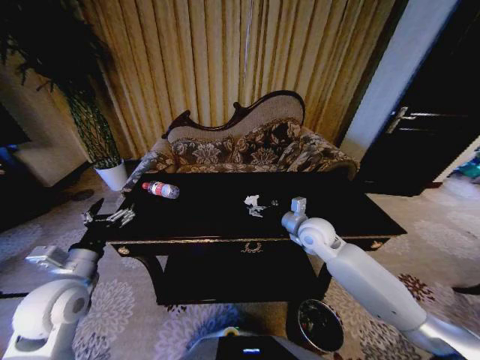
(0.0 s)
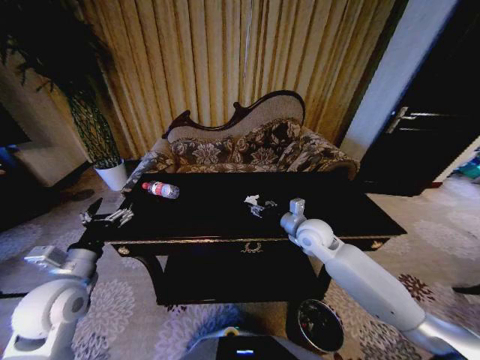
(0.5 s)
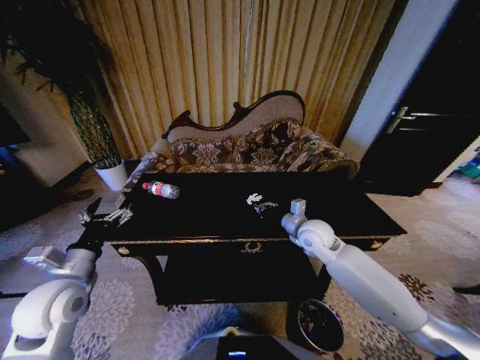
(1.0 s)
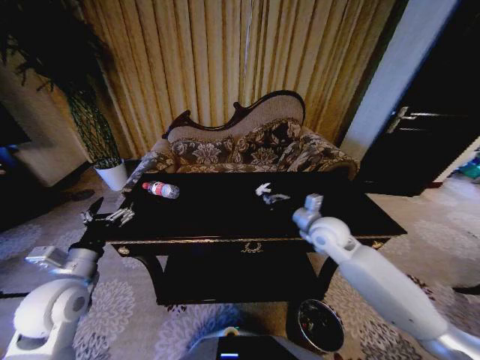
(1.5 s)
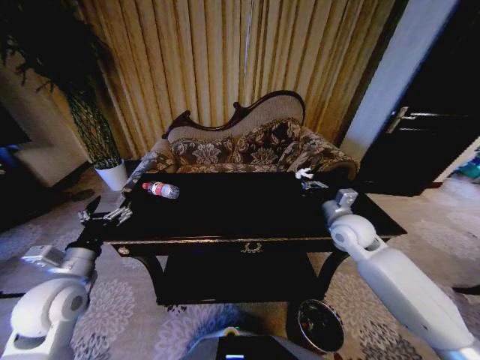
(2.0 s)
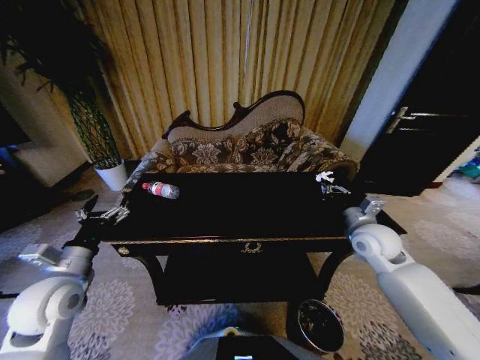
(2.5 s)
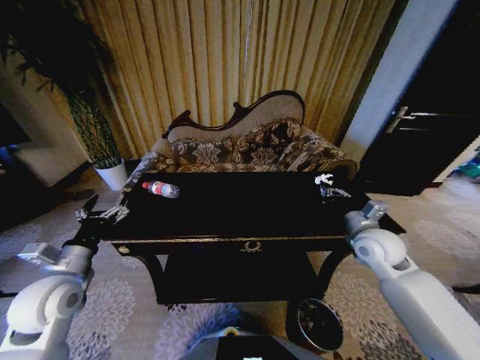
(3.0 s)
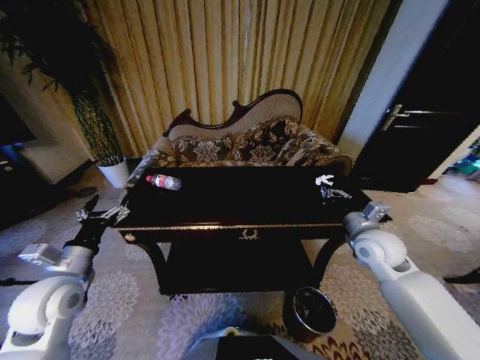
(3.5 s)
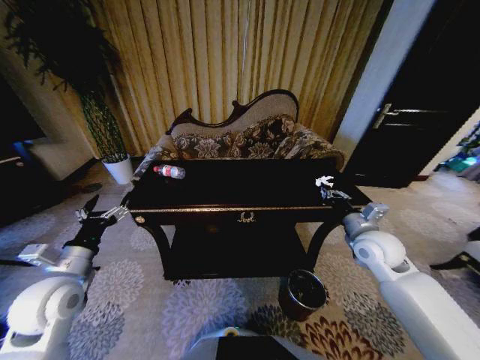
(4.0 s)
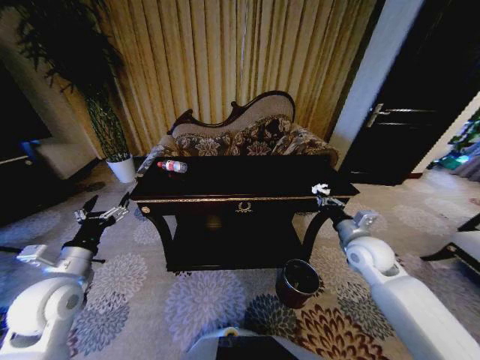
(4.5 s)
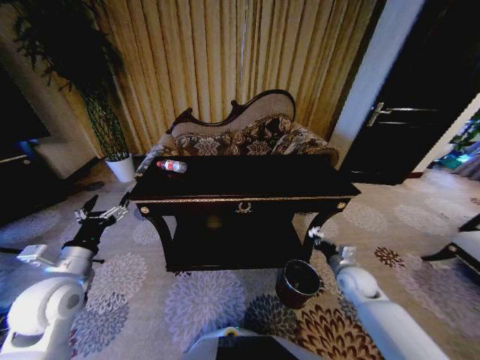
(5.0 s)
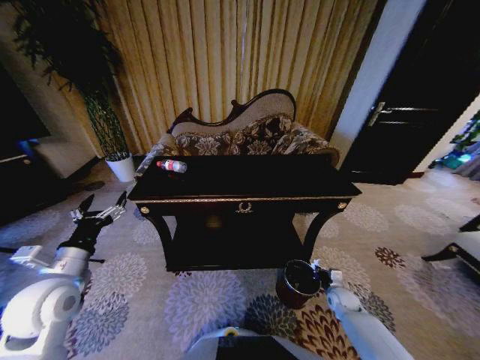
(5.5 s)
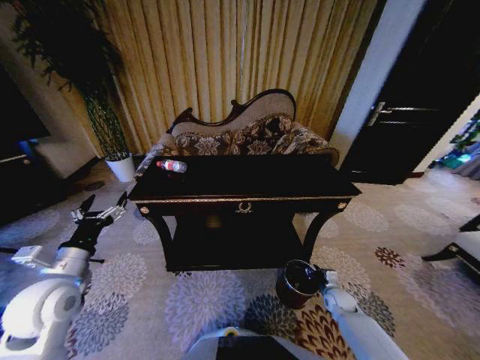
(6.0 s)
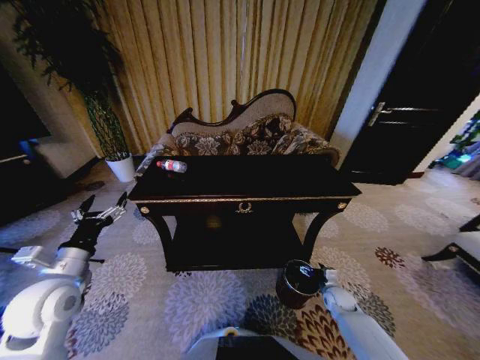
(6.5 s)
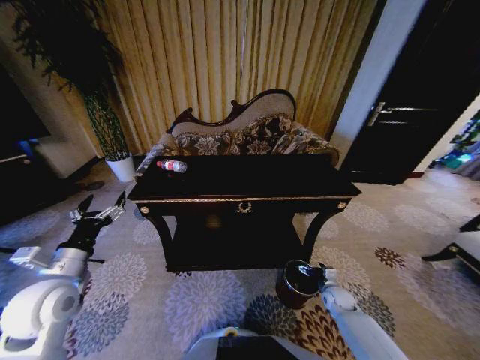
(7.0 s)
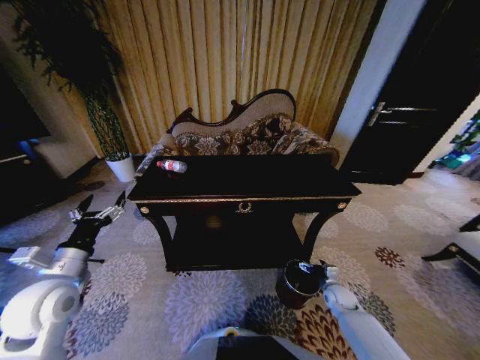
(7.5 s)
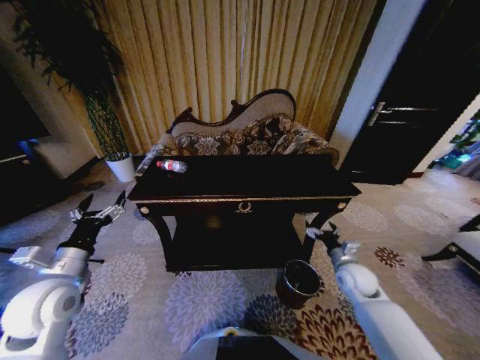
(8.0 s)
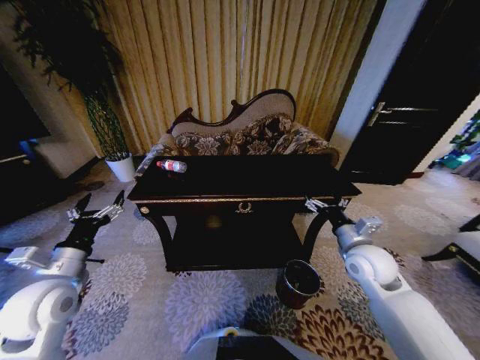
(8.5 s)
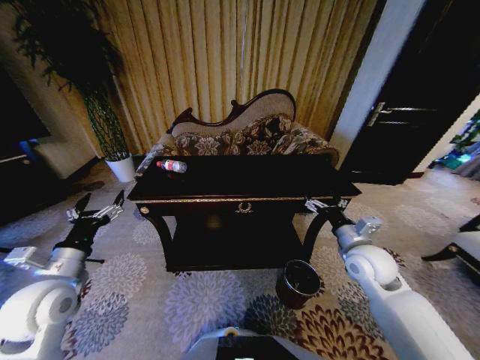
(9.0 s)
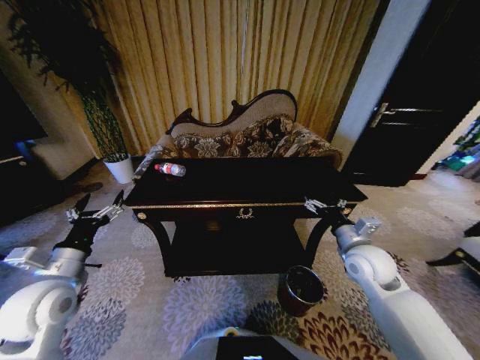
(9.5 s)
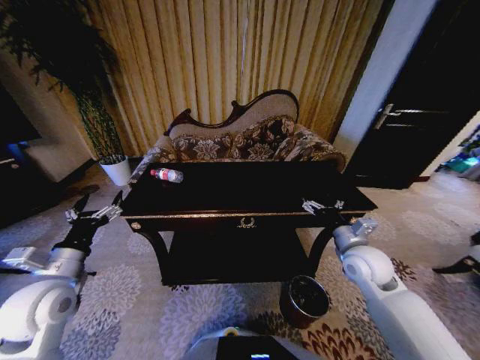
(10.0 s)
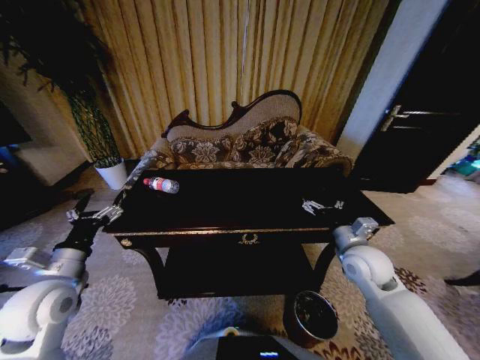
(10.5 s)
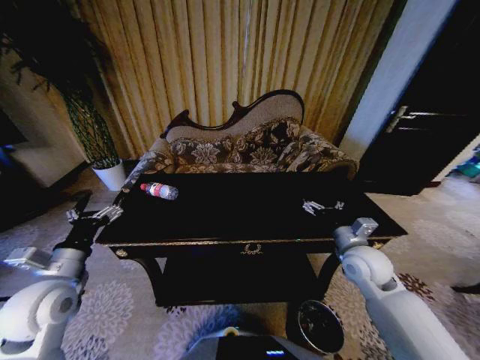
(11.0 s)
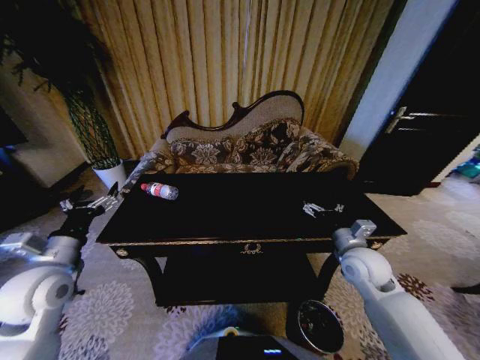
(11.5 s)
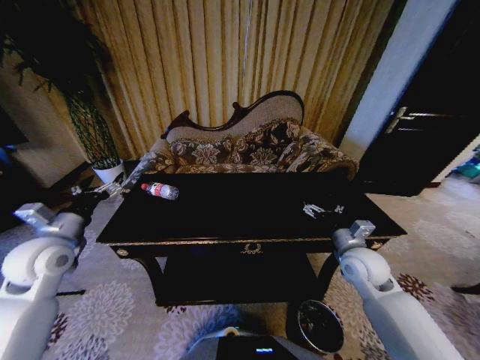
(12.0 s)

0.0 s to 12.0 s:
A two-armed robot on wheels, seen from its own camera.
Task of the whole recording: Move to the front of the table and place the trash on the table into the trash bin.
0.0 to 2.0 s: The right gripper is displaced to the right by approximately 10 cm, and closes its fingers.
2.0 to 4.0 s: The right gripper shifts by about 5 cm.
4.0 to 6.0 s: The right gripper travels downward by roughly 30 cm.
6.0 to 8.0 s: The right gripper heads upward, covering roughly 20 cm, and opens its fingers.
8.0 to 10.0 s: The right gripper heads upward, covering some 10 cm.
10.0 to 12.0 s: The left gripper shifts roughly 10 cm forward.

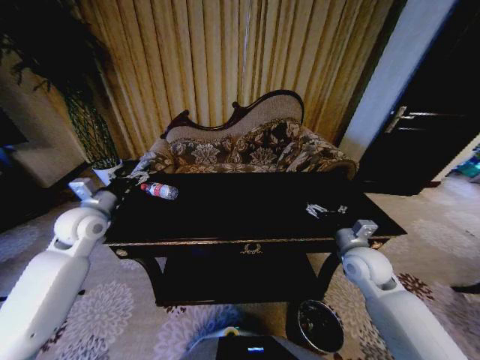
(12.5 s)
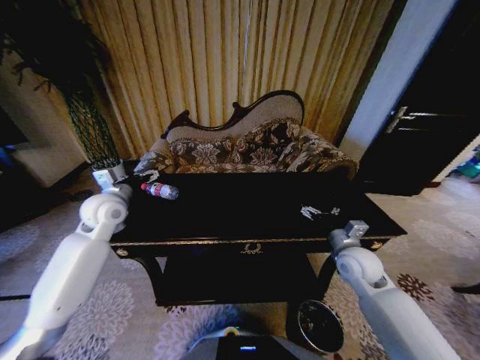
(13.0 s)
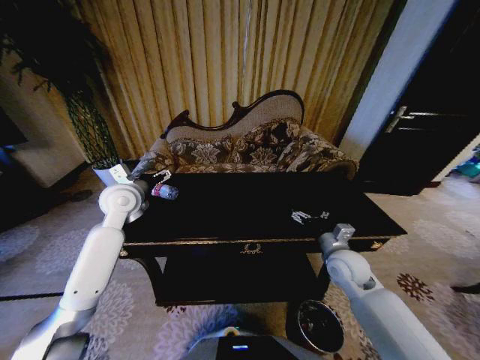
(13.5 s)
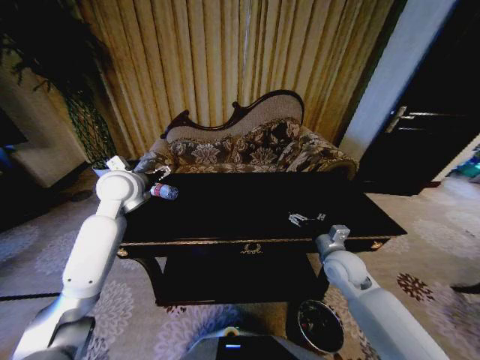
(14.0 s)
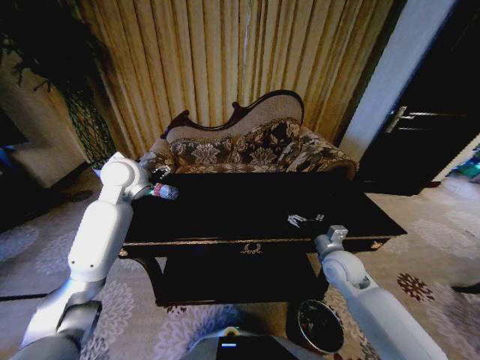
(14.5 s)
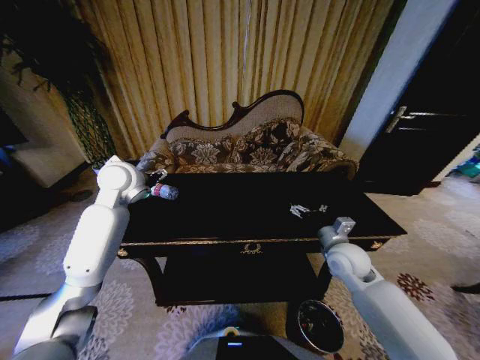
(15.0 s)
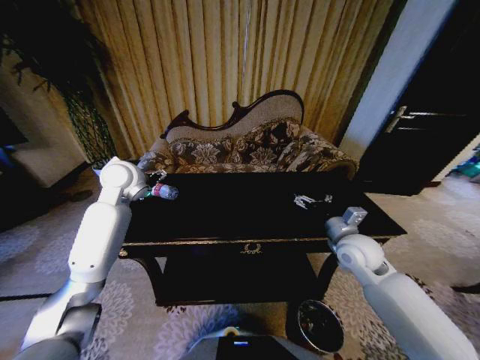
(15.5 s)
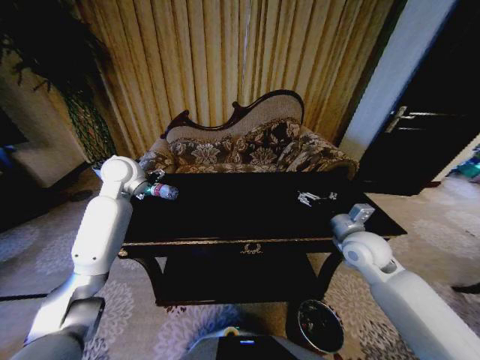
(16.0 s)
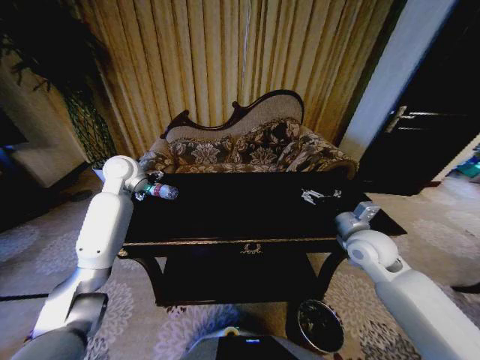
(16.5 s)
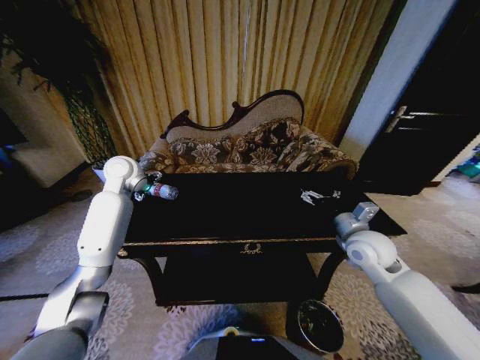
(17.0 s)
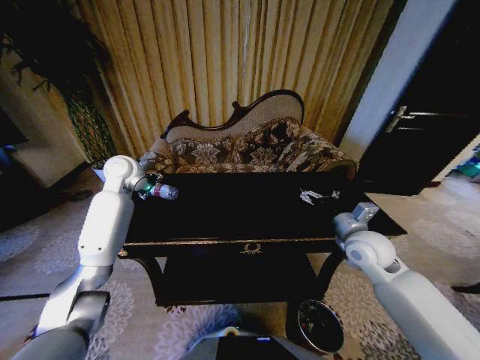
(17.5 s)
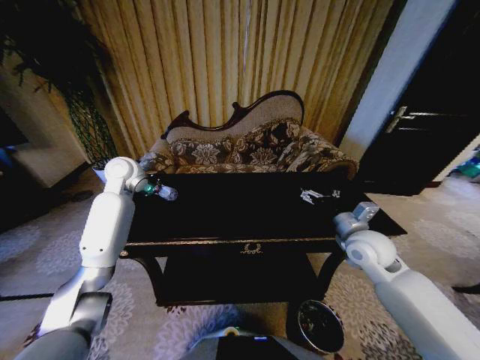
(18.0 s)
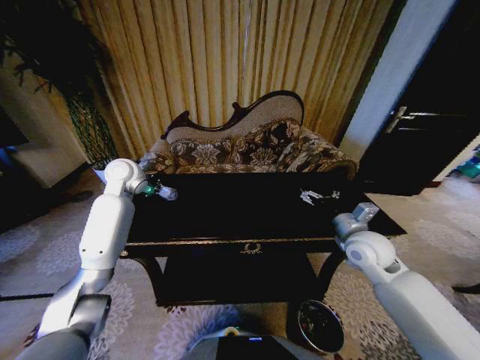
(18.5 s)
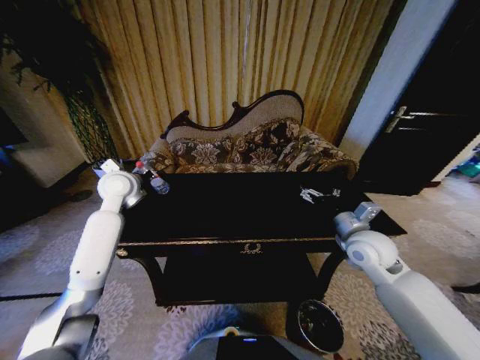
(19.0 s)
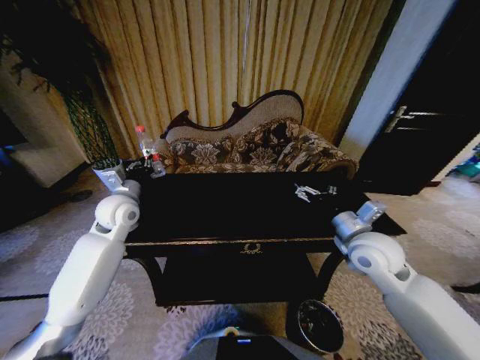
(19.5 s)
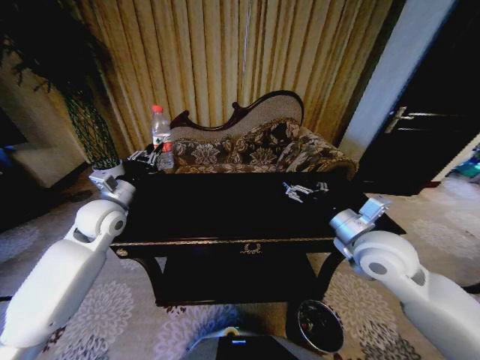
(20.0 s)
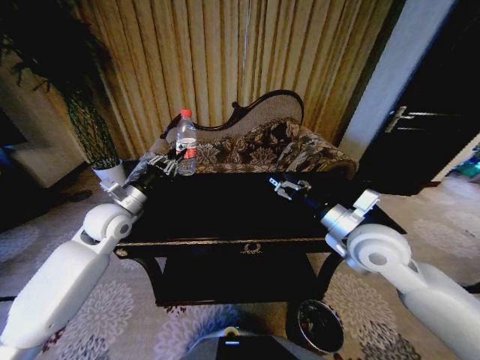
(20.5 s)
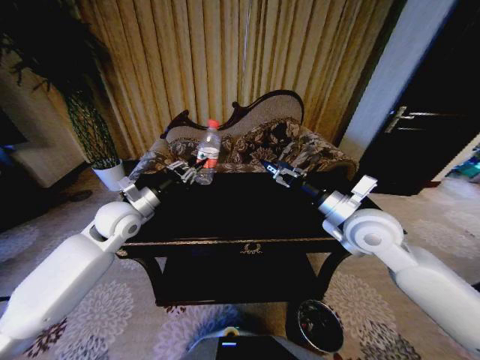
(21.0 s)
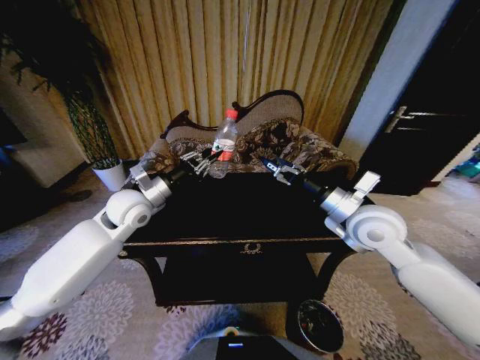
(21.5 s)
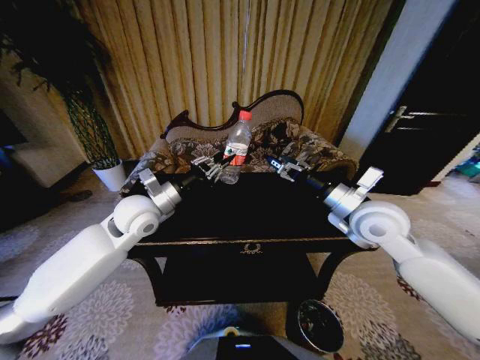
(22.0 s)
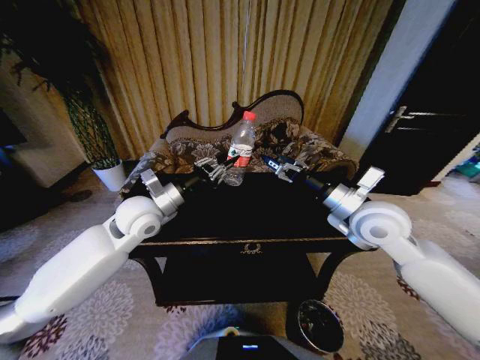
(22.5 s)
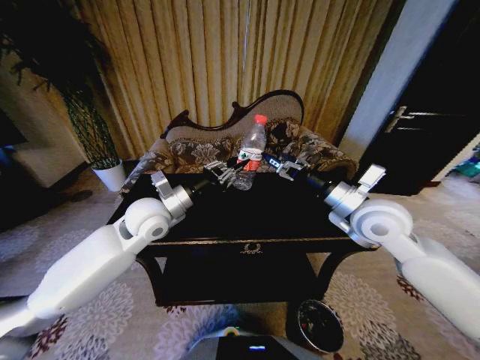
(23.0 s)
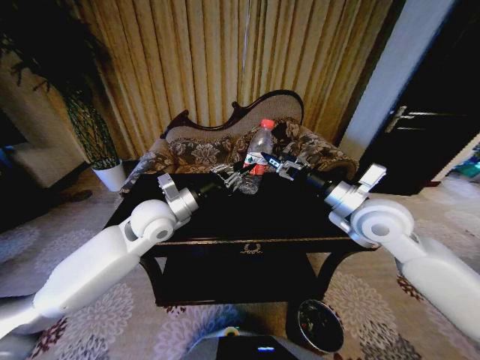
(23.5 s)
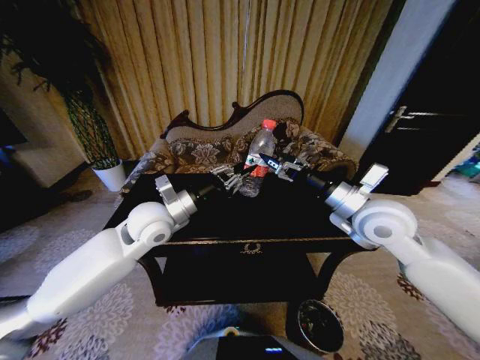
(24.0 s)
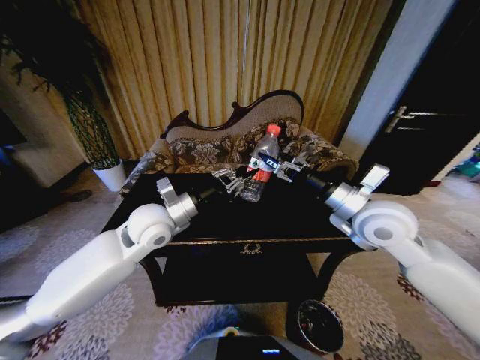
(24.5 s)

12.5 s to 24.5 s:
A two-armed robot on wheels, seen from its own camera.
Task of the whole recording: Move to the front of the table and place the trash on the table into the trash bin.
12.5 to 14.5 s: The left gripper heads to the right, upward and forward, covering about 15 cm; the right gripper ends up roughly 5 cm from where it was.
14.5 to 16.5 s: The right gripper shifts roughly 10 cm upward. The left gripper shifts by some 5 cm.
16.5 to 18.5 s: The left gripper closes up.
18.5 to 20.5 s: The left gripper is displaced backward and downward by roughly 15 cm. The right gripper heads upward and to the left, covering approximately 10 cm.
20.5 to 22.5 s: The left gripper heads to the right, covering about 10 cm.
22.5 to 24.5 s: There are only small adjustments of the grippers.

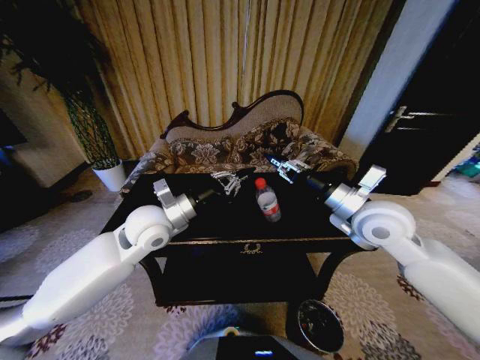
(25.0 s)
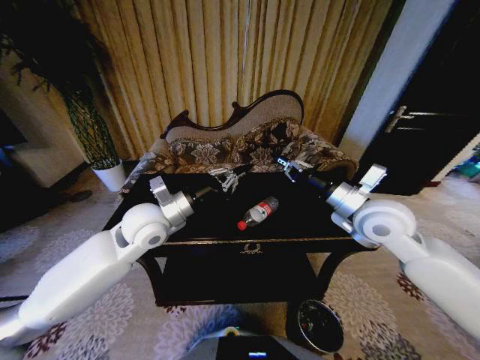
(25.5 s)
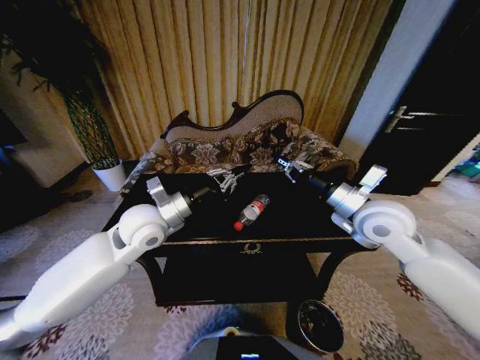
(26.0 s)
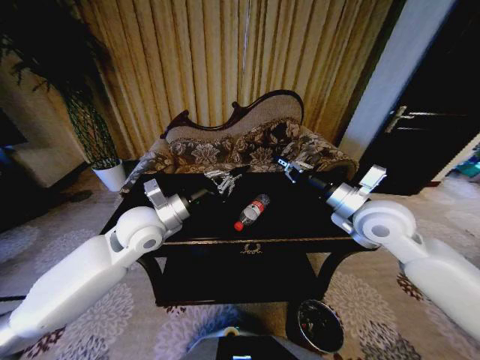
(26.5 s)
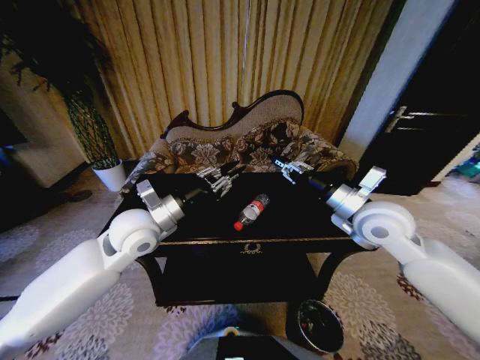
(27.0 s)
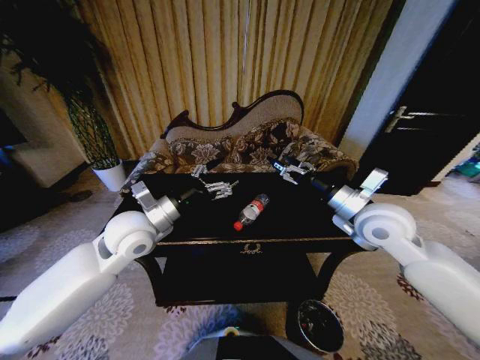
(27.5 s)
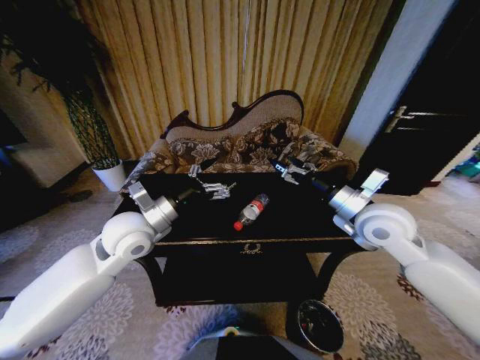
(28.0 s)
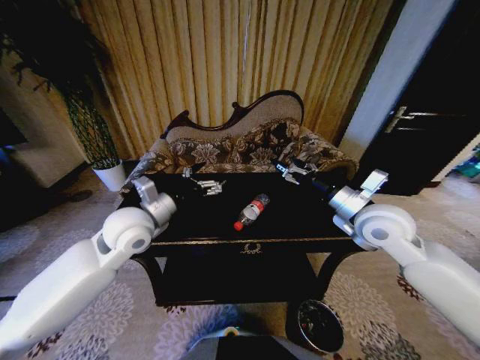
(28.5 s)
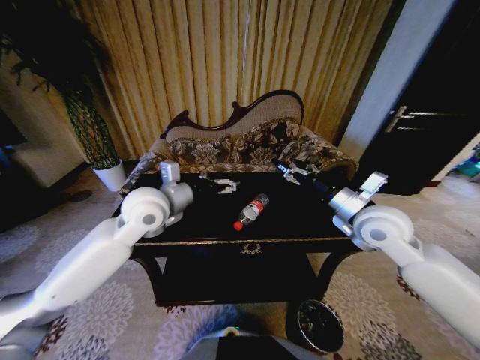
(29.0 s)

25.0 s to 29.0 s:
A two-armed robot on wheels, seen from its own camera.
Task of the whole recording: Move to the front of the table and place the trash on the table into the trash bin.
25.0 to 27.0 s: The grippers move only a little.
27.0 to 29.0 s: The right gripper opens. The left gripper moves roughly 5 cm, and opens.
